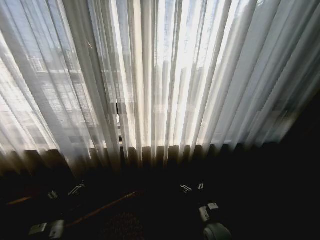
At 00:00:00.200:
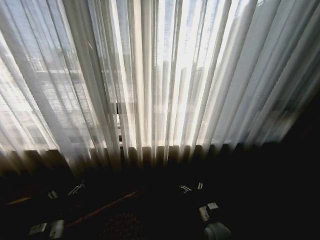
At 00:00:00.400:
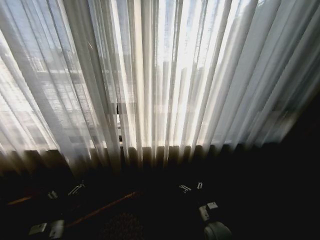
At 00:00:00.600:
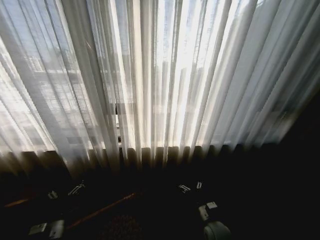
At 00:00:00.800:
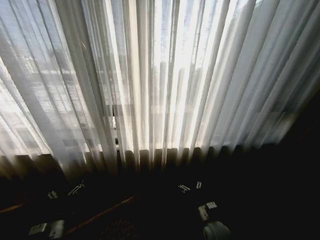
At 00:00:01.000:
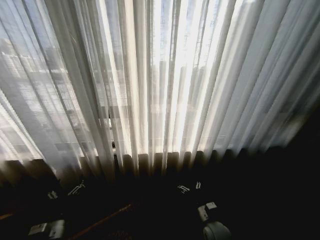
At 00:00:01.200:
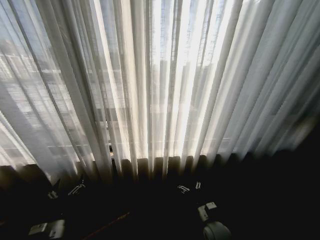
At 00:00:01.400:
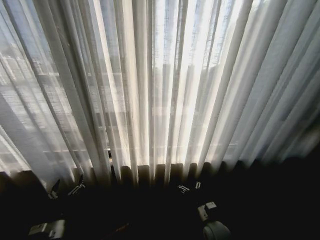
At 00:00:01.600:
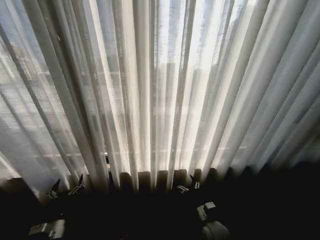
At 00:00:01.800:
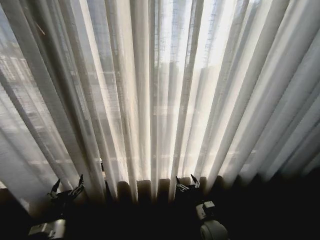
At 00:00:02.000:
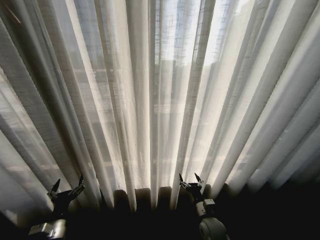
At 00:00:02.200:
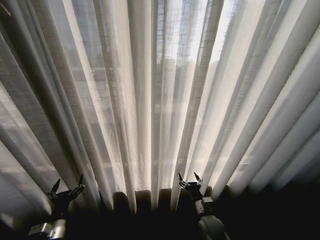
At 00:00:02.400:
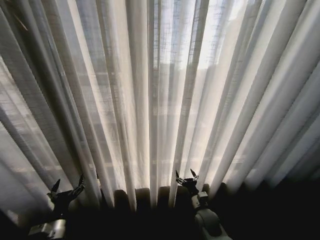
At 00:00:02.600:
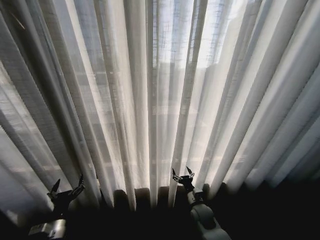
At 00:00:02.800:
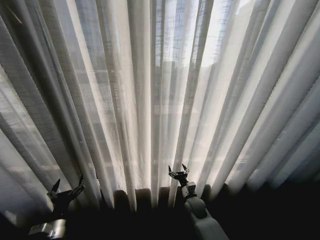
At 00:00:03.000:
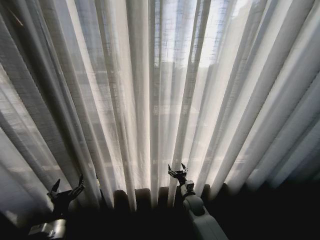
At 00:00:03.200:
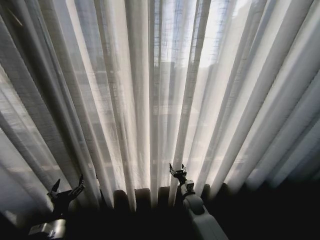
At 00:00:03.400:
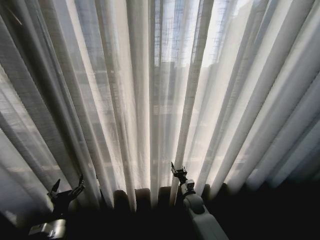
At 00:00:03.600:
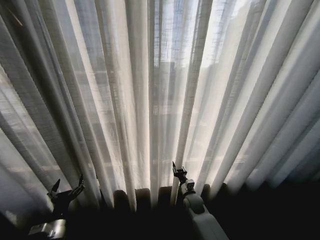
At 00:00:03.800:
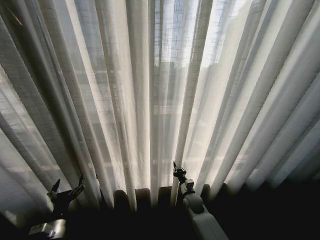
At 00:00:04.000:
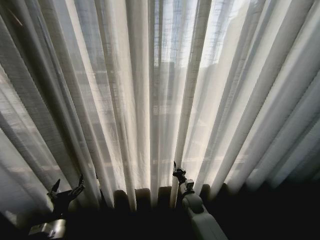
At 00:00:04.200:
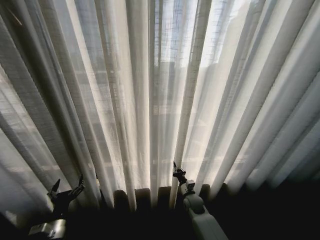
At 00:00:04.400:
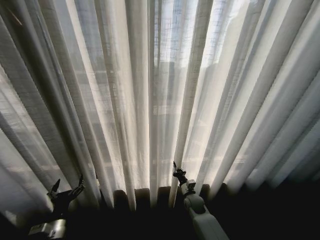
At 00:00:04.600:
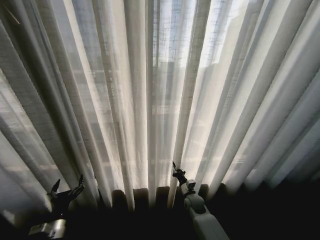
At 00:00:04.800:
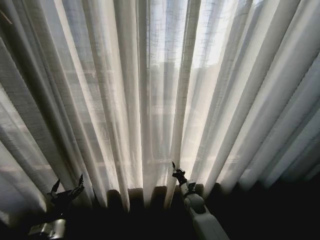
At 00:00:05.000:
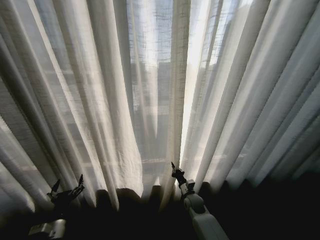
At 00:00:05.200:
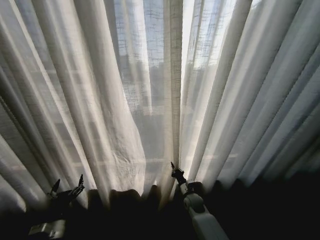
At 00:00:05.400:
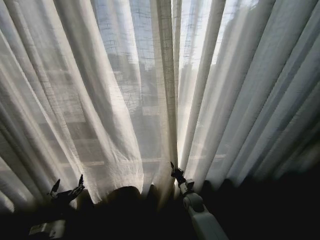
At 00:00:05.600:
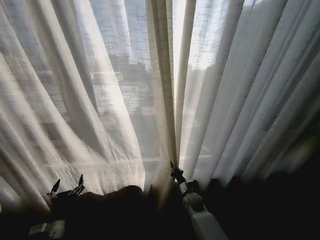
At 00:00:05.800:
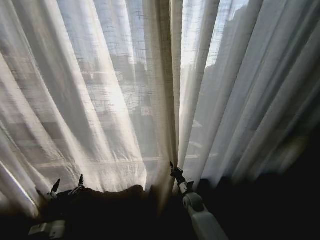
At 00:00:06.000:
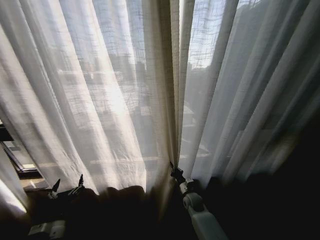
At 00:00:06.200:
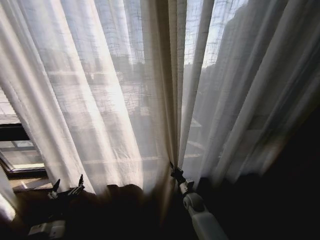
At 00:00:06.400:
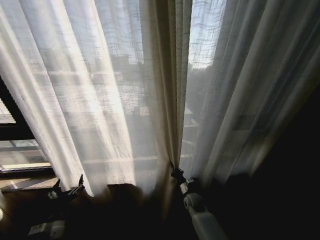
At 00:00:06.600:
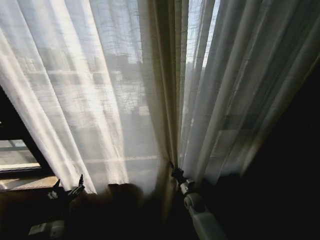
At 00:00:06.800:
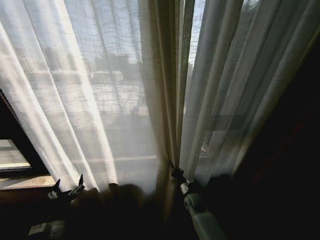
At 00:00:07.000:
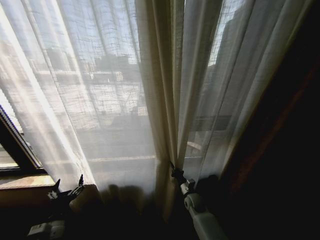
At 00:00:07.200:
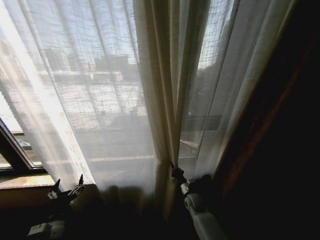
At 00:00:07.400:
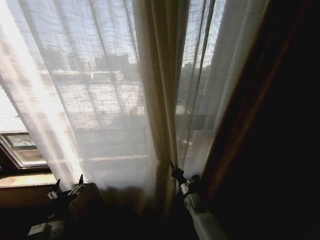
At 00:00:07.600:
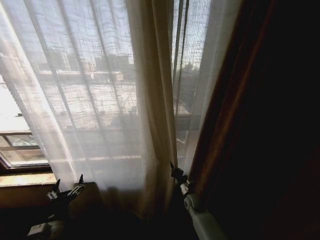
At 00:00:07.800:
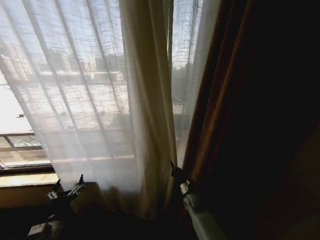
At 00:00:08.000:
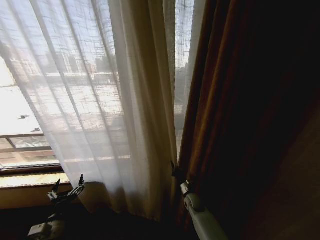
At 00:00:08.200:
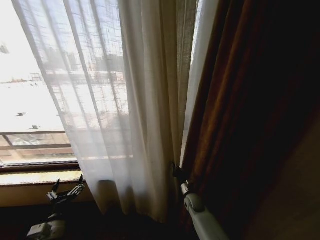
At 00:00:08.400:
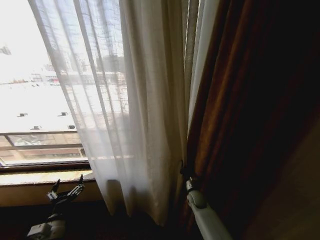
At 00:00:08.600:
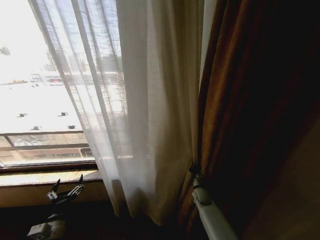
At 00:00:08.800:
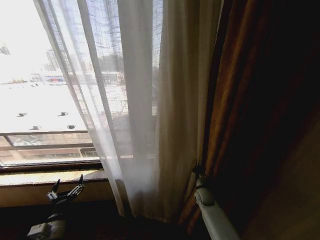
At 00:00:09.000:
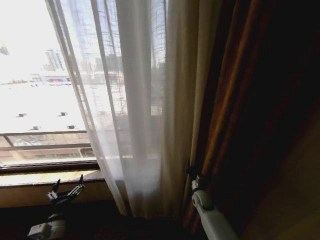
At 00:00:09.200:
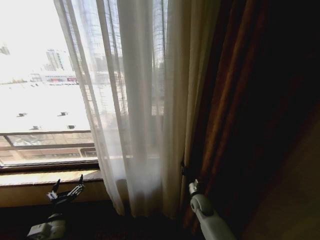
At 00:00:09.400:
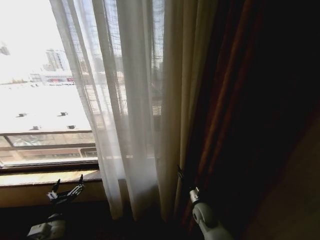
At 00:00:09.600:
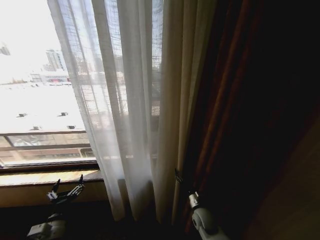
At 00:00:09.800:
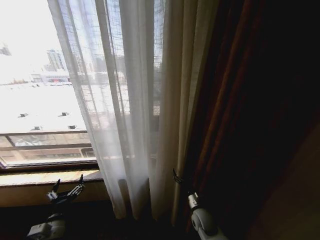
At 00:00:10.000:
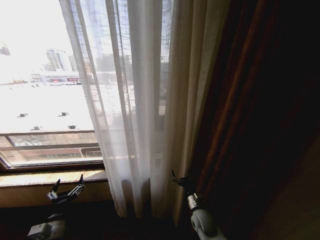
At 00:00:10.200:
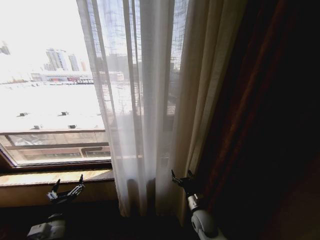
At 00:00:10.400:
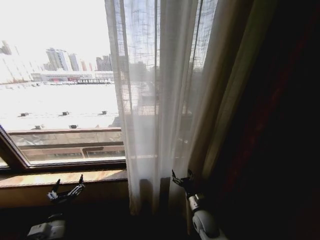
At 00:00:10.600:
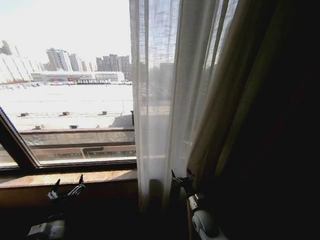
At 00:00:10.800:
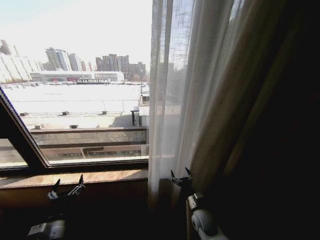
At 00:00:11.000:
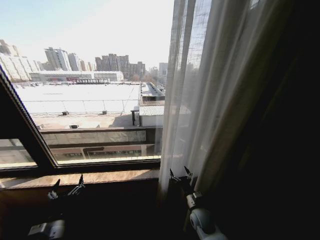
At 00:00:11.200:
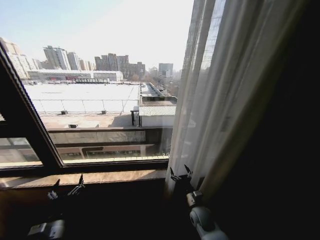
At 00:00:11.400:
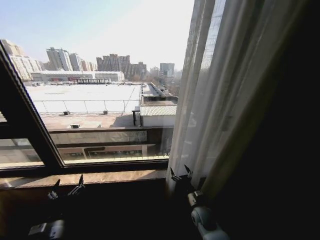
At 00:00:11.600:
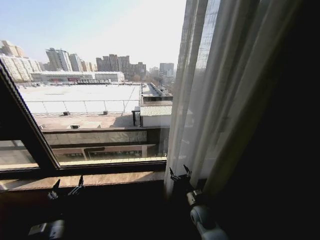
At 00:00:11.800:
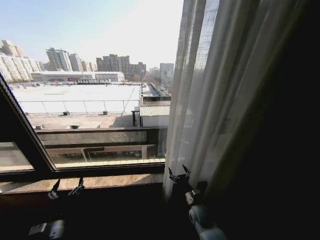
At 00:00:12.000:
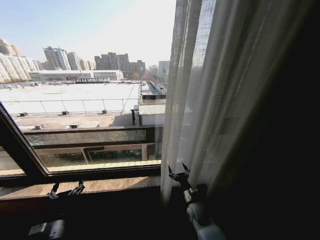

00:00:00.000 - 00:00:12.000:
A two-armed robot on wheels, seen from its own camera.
Task of the whole recording: Open the curtains by pulling them apart, changing their state from closed to fully open.
00:00:01.600 - 00:00:03.000: The right gripper heads forward, covering roughly 10 cm.
00:00:03.000 - 00:00:04.400: The right gripper closes its fingers.
00:00:07.600 - 00:00:09.000: The right gripper ends up some 5 cm from where it was.
00:00:09.000 - 00:00:10.400: The right gripper travels backward by approximately 10 cm, and opens its fingers.

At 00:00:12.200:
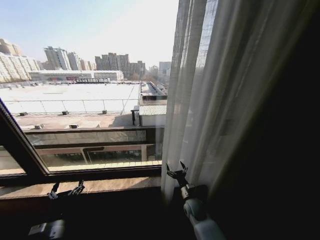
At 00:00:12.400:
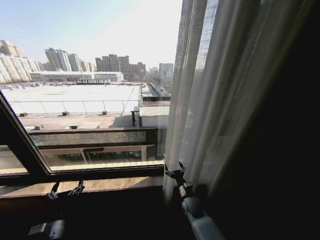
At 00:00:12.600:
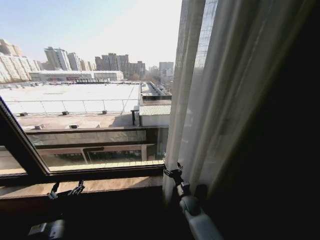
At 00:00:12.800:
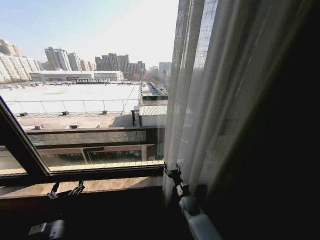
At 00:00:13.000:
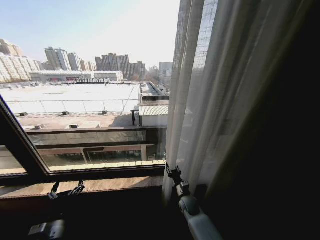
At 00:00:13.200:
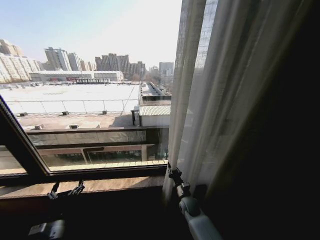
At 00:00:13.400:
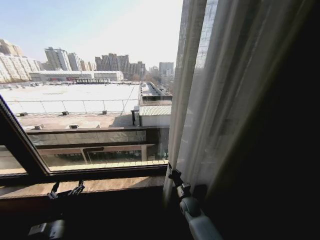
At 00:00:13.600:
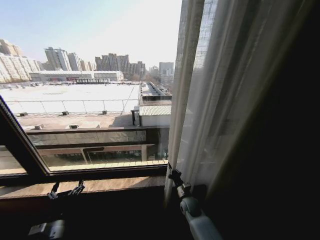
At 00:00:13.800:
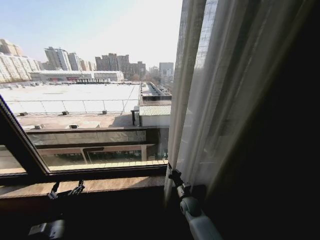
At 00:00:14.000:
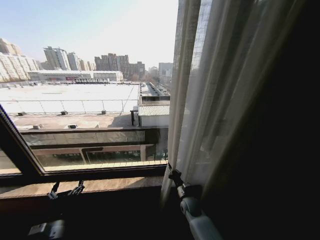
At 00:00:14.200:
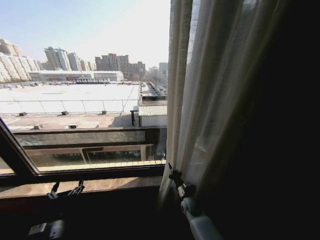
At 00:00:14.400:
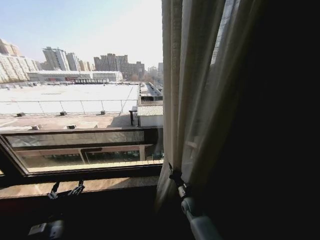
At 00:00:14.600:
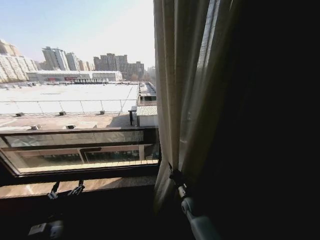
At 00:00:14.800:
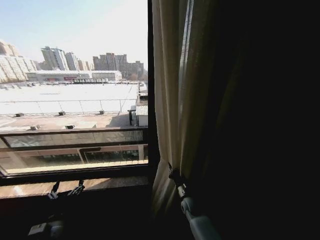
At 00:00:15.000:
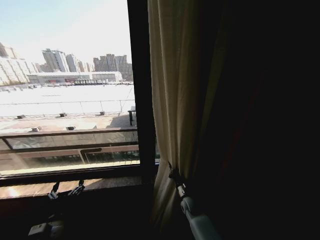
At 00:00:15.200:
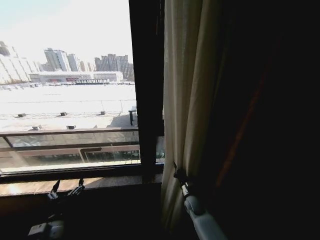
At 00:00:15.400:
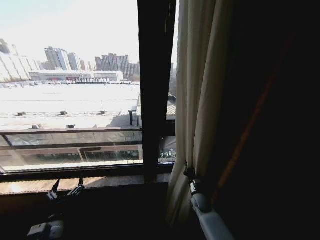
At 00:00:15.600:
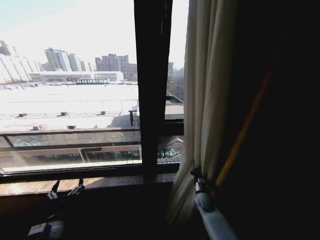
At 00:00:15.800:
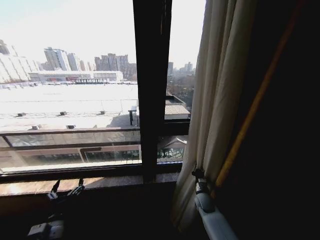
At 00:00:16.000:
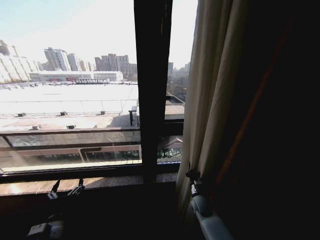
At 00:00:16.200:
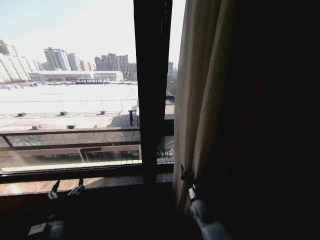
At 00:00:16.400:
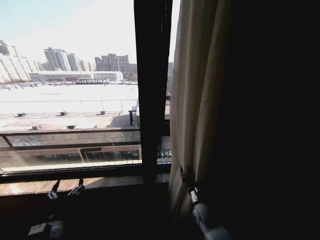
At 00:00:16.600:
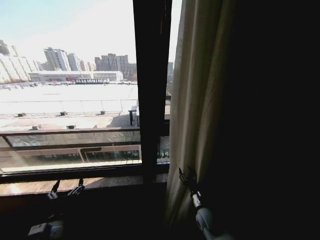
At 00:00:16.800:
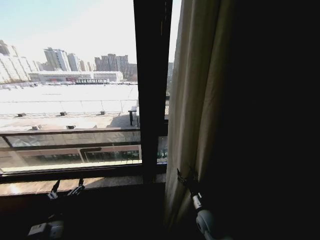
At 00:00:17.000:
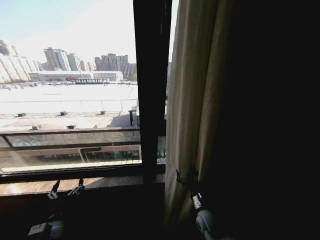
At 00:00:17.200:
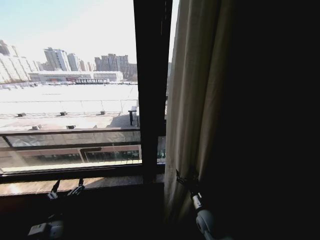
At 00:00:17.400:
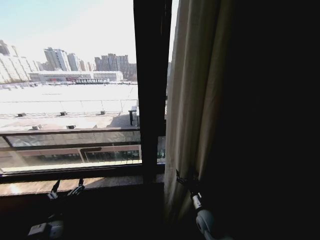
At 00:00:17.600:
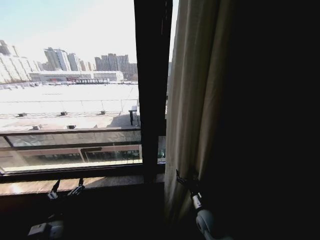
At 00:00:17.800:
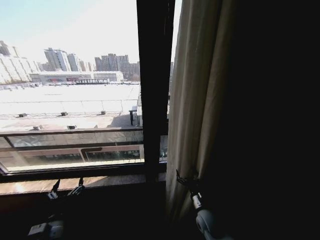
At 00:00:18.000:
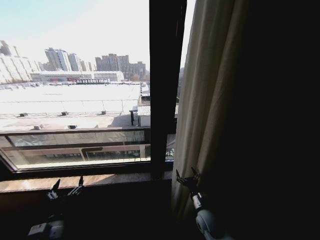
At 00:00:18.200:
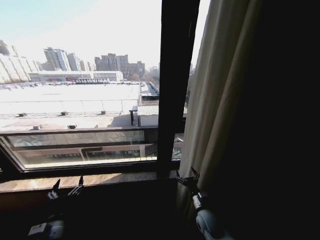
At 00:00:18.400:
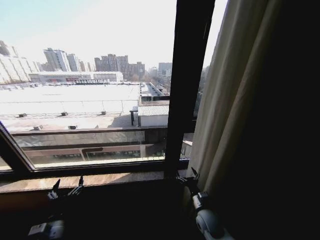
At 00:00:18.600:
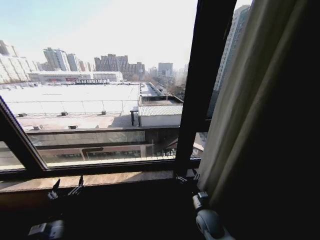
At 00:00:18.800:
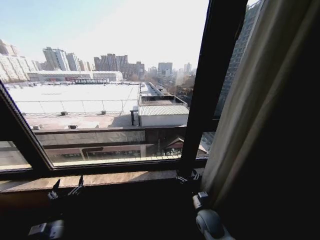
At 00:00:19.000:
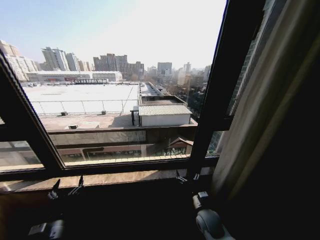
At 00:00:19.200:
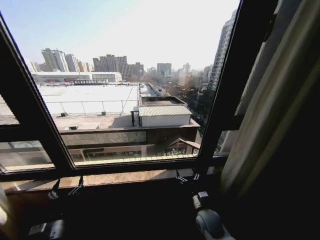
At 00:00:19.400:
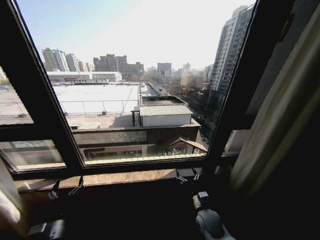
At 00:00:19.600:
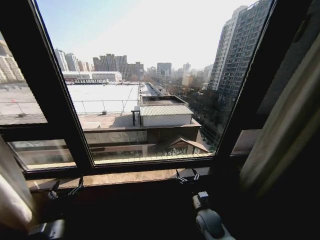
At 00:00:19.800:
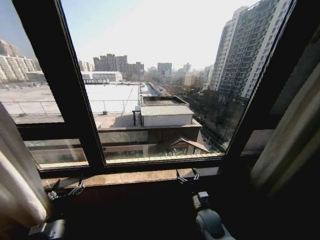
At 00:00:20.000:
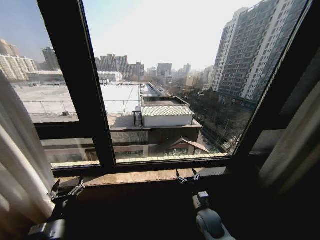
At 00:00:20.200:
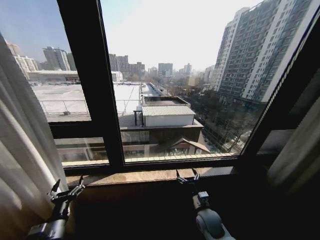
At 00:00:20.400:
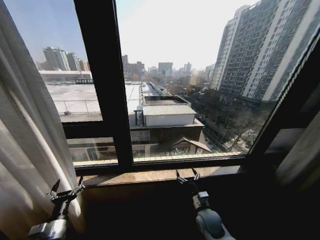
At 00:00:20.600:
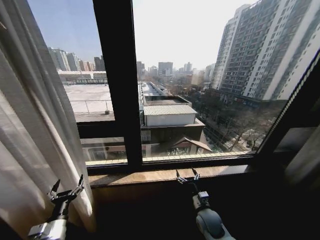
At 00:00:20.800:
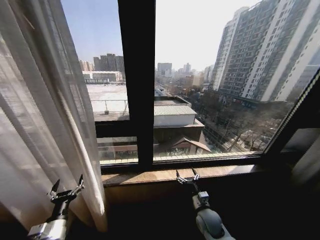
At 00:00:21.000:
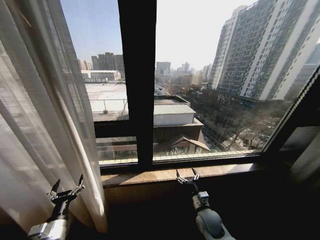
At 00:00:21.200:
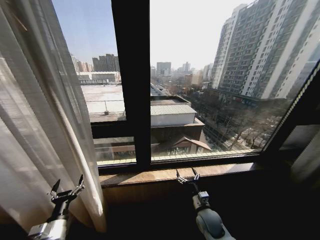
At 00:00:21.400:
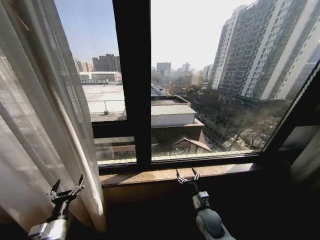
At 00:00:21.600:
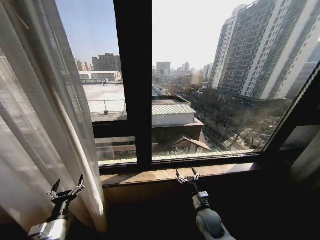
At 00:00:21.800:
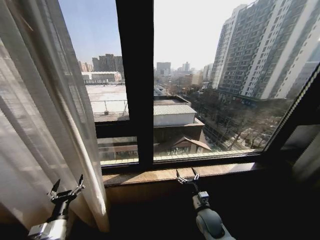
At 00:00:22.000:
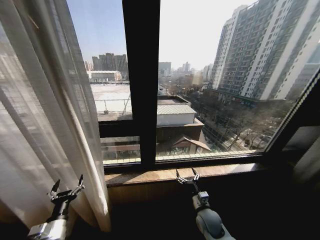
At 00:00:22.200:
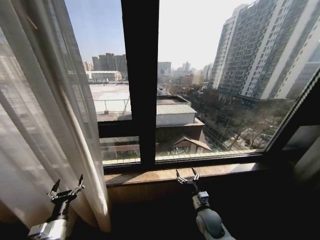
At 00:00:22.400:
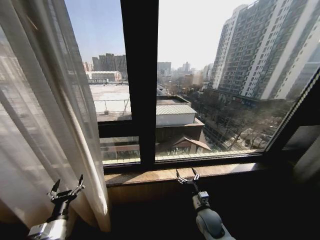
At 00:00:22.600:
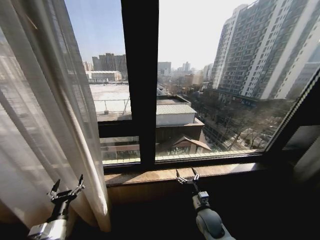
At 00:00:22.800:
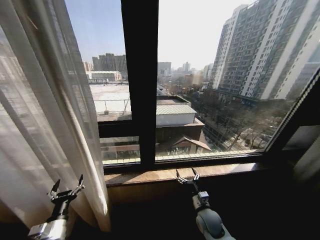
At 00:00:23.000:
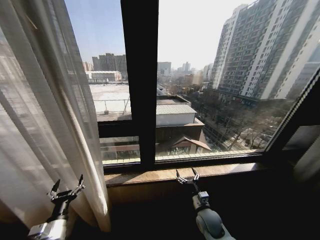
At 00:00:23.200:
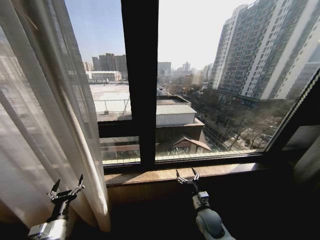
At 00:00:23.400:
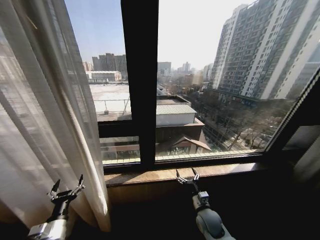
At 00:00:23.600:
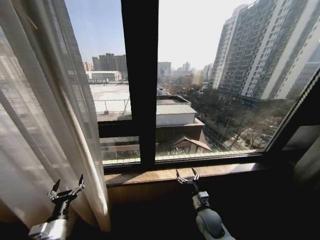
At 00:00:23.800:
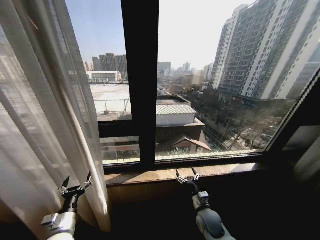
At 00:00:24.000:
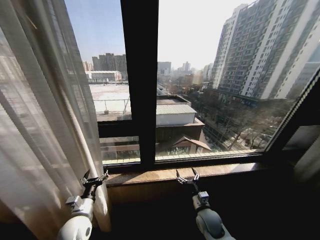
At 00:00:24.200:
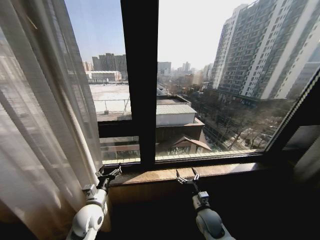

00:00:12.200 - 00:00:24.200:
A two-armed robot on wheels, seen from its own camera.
Task of the whole recording: Open the curtains by pulling them apart, changing their state from closed to fully open.
00:00:12.200 - 00:00:13.800: The right gripper closes.
00:00:15.200 - 00:00:16.600: The right gripper goes roughly 10 cm backward, and opens up.
00:00:16.600 - 00:00:18.200: The right gripper opens its fingers.
00:00:21.200 - 00:00:22.600: Both grippers stay about where they are.
00:00:22.600 - 00:00:24.200: The left gripper shifts some 15 cm to the right and forward.
